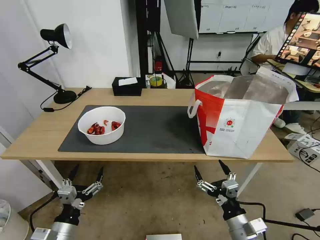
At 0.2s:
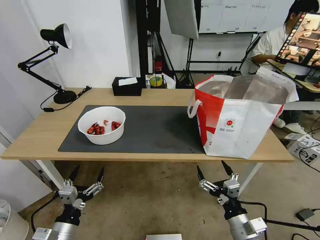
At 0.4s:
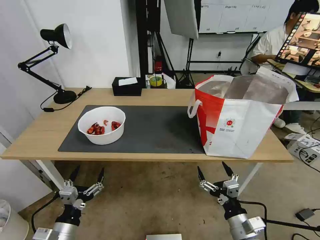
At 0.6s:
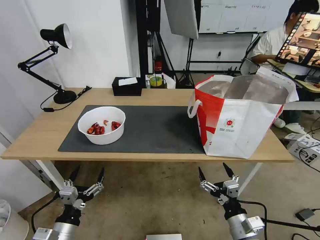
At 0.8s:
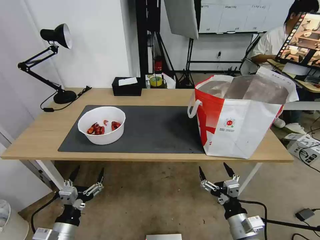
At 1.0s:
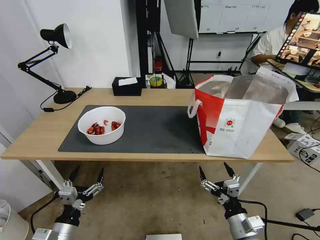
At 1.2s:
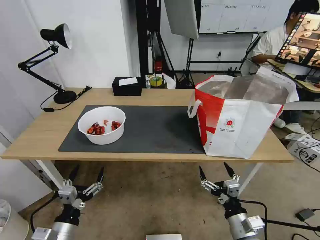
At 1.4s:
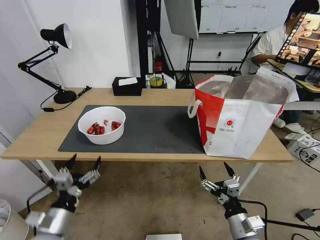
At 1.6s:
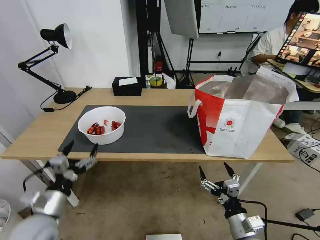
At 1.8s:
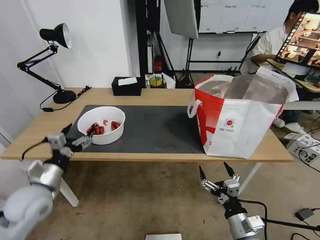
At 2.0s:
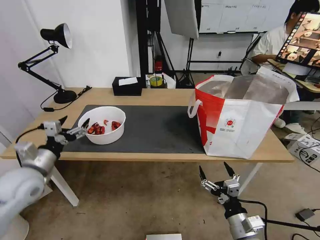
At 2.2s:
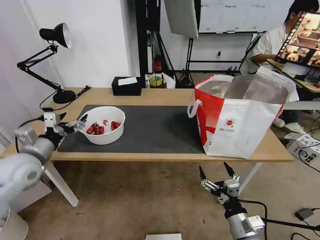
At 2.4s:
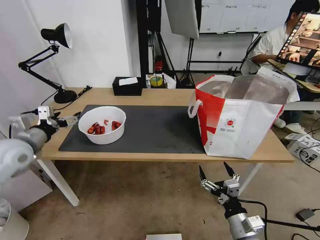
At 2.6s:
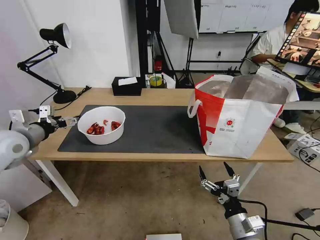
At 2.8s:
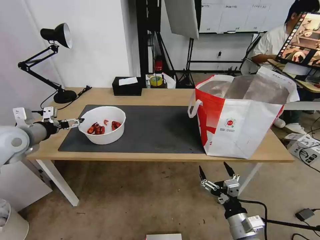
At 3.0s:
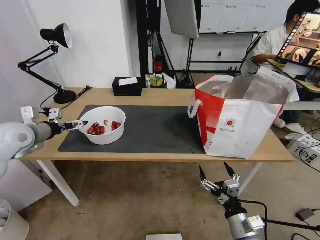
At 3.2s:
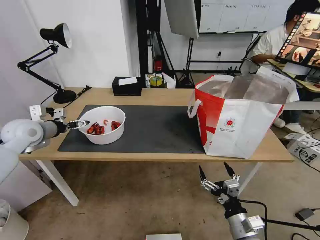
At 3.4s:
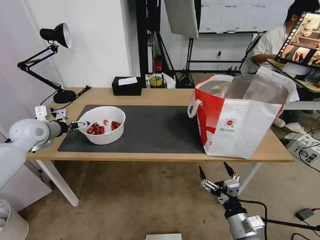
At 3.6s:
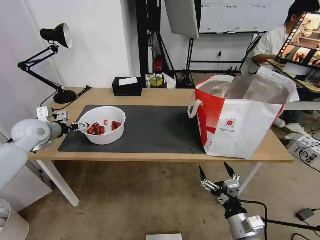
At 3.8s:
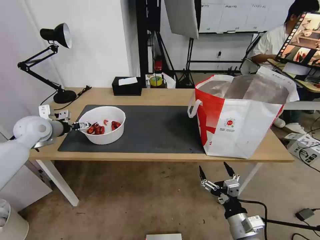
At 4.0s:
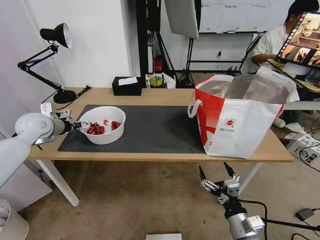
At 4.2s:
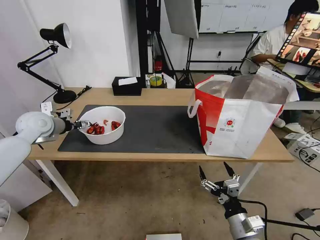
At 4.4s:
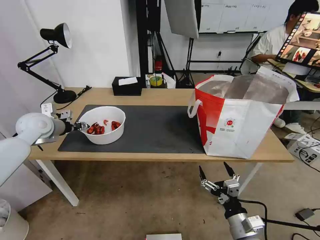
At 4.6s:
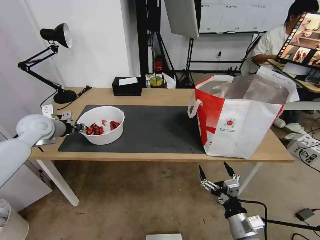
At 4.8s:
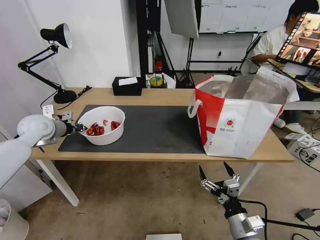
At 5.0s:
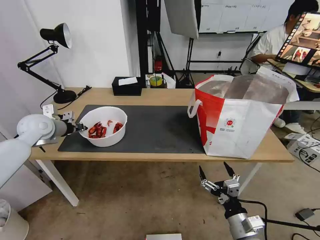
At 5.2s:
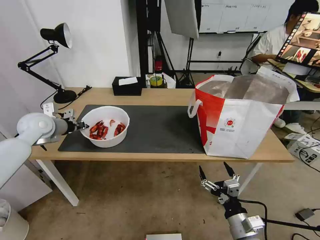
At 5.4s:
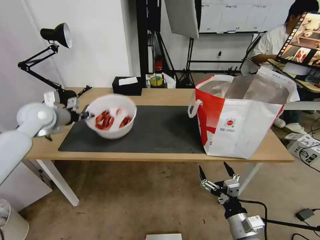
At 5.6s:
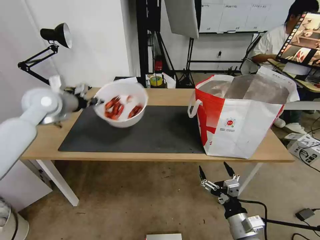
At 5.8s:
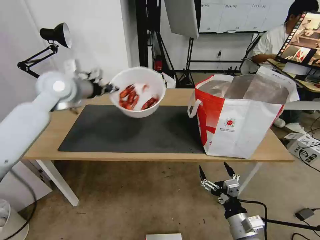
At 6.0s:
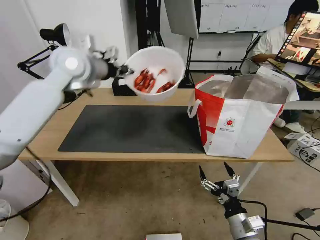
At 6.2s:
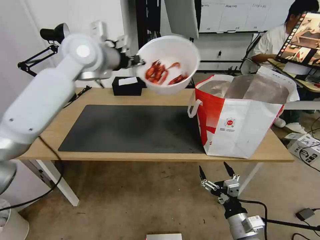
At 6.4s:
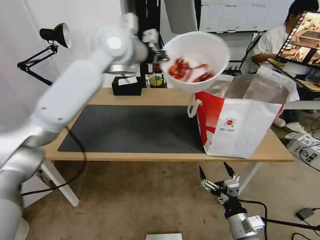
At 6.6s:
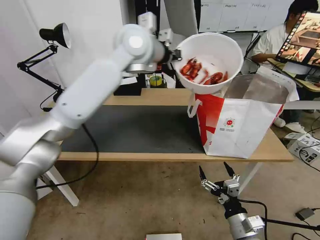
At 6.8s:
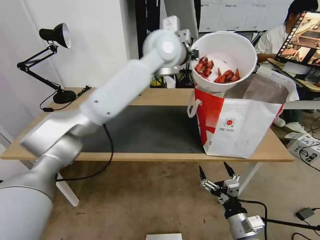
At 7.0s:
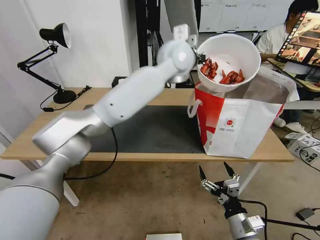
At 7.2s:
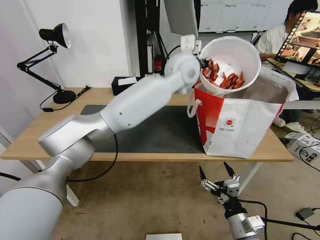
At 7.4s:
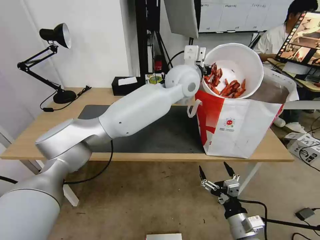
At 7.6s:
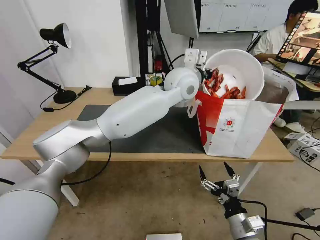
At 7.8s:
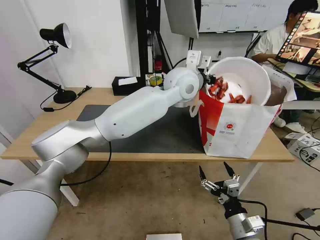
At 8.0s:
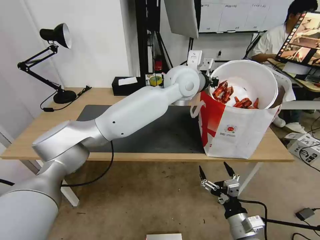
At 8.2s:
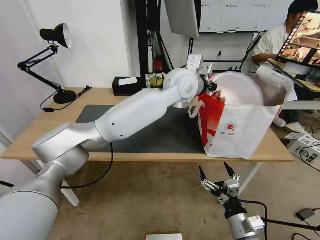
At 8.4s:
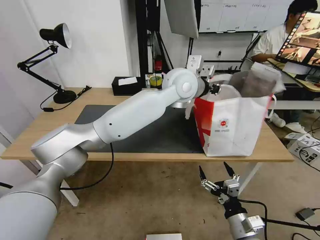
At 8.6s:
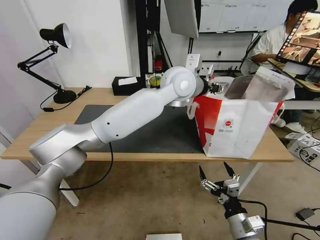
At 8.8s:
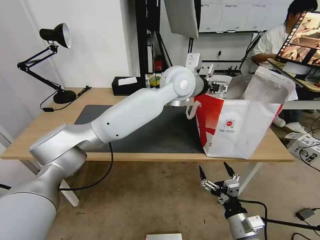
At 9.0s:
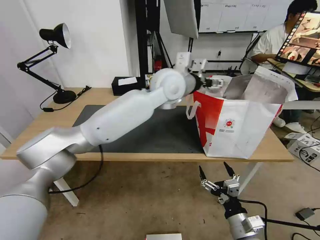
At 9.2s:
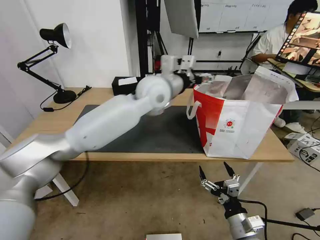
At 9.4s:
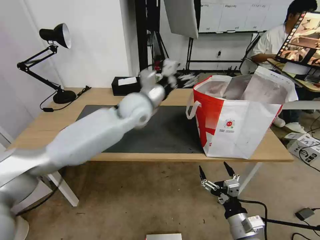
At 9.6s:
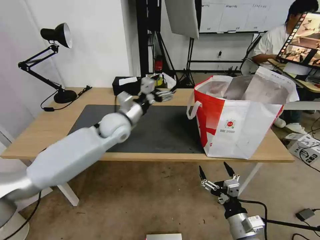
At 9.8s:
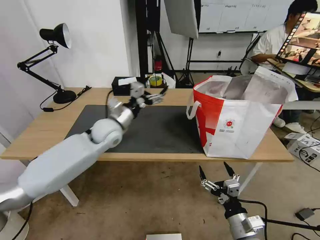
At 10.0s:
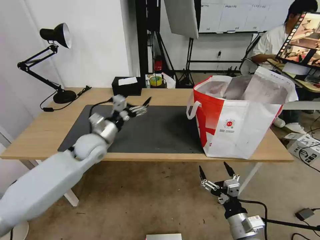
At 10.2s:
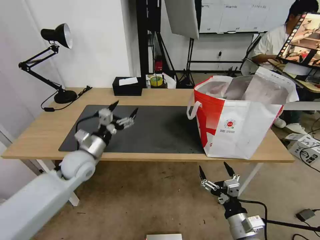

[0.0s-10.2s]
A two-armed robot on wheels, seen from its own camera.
Task of the whole recording: Pick up the trash from the table and place it into the takeout bag.
0.0s to 1.4s: The grippers stay close to where they were, moving slightly.
1.4s to 3.0s: The left gripper goes about 35 cm forward, upward and to the left.
3.0s to 4.4s: The left gripper is displaced forward by some 5 cm, and closes its fingers.
4.4s to 5.8s: The left gripper moves upward and to the right, some 20 cm, and closes up.
5.8s to 7.2s: The left gripper is displaced to the right by some 35 cm.
7.2s to 8.8s: The left gripper opens up.
8.8s to 10.2s: The left gripper goes roughly 40 cm to the left and downward.

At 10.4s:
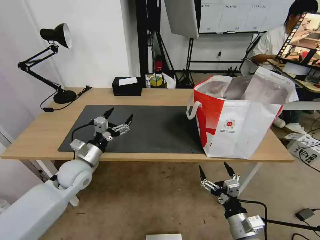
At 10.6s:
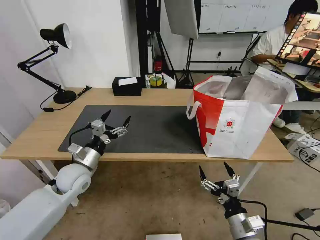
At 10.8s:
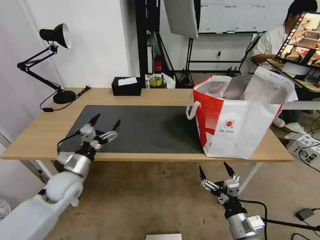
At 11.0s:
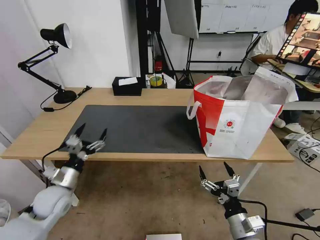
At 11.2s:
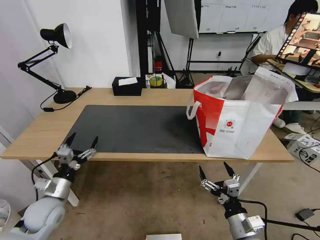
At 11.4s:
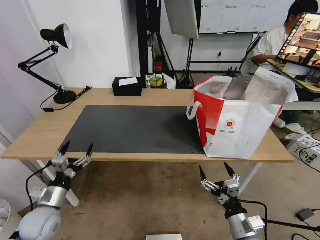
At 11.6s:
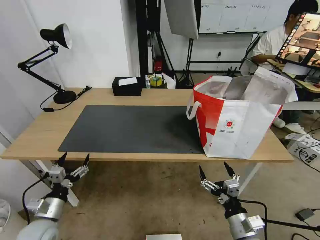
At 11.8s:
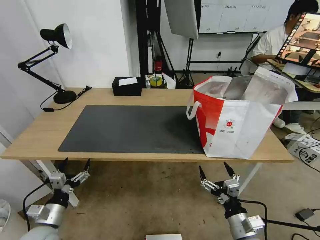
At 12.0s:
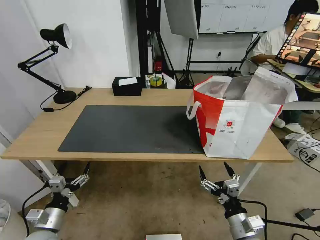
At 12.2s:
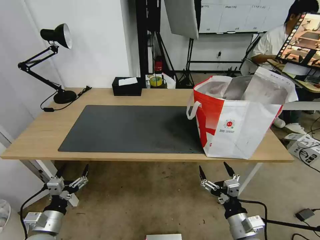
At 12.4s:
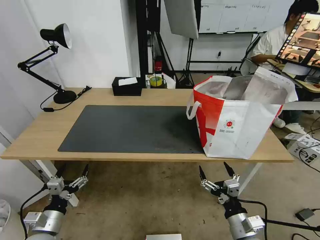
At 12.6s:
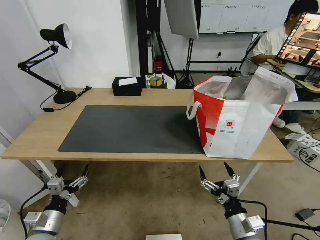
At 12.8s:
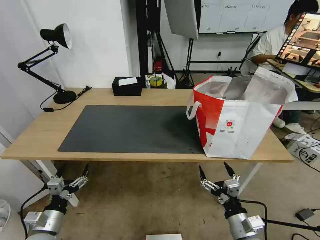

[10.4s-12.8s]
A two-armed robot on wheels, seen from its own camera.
Task of the whole recording: Pick up the trash from the table and place it into the takeout bag.
10.4s to 11.6s: The left gripper heads backward, downward and to the left, covering approximately 20 cm.
11.6s to 12.8s: The grippers move only a little.

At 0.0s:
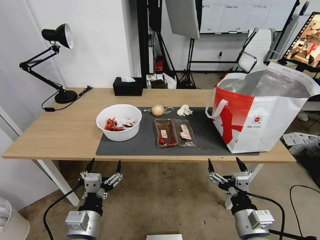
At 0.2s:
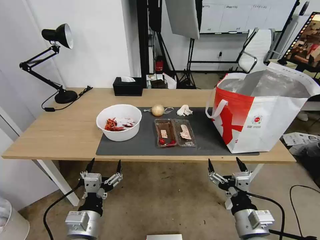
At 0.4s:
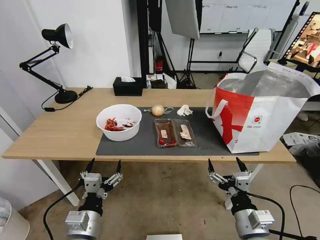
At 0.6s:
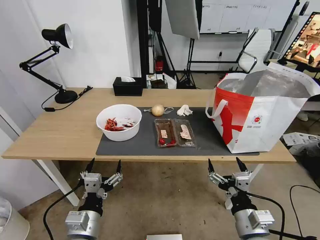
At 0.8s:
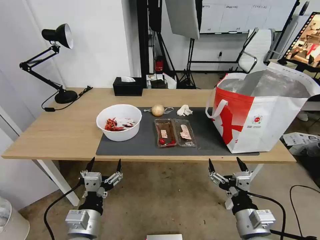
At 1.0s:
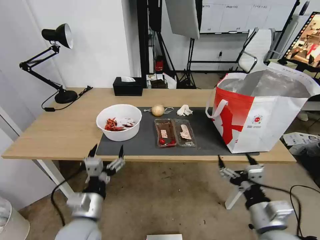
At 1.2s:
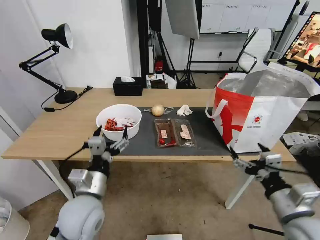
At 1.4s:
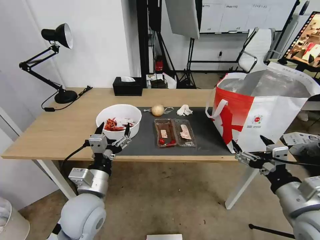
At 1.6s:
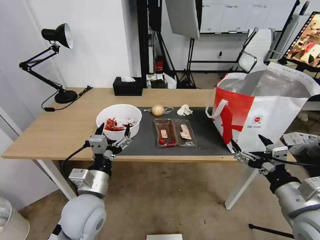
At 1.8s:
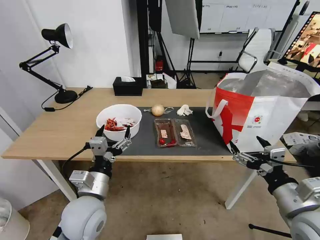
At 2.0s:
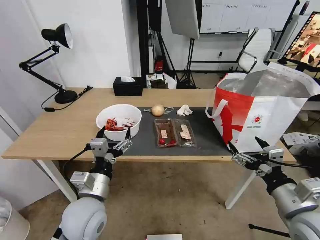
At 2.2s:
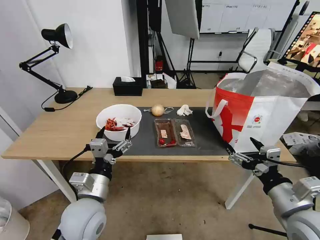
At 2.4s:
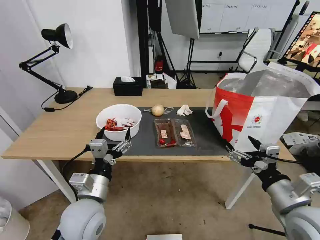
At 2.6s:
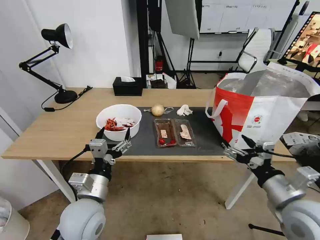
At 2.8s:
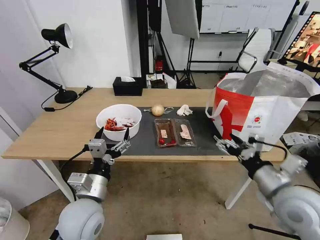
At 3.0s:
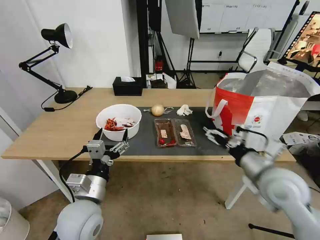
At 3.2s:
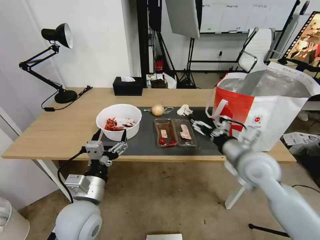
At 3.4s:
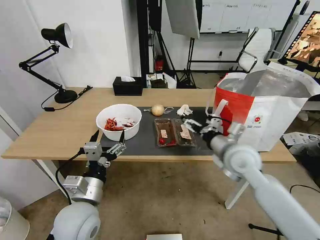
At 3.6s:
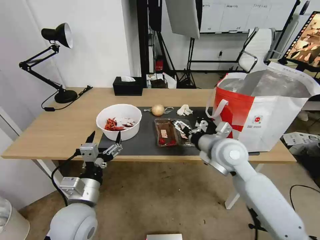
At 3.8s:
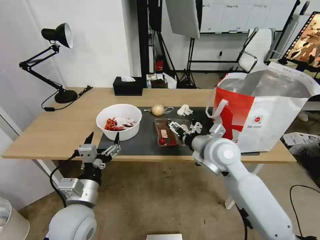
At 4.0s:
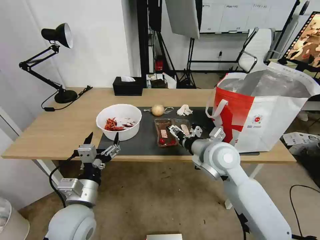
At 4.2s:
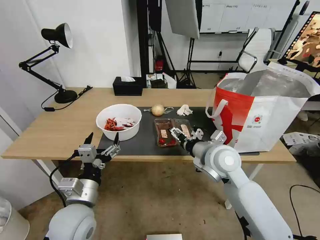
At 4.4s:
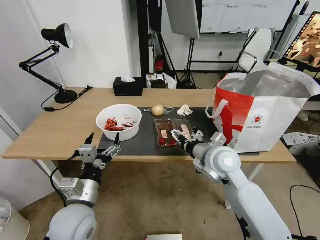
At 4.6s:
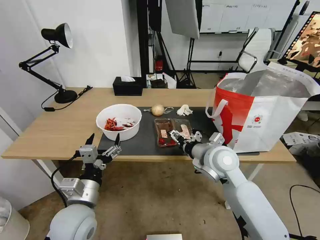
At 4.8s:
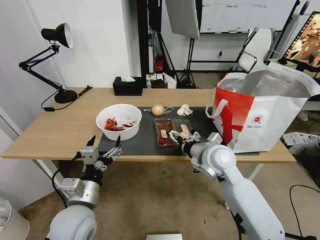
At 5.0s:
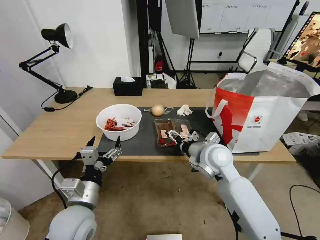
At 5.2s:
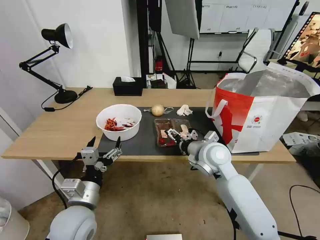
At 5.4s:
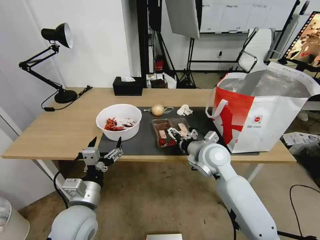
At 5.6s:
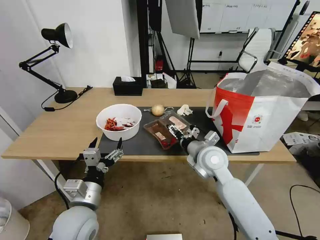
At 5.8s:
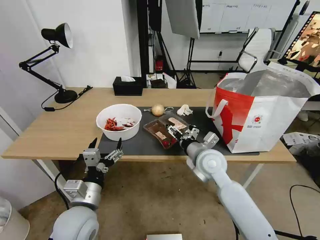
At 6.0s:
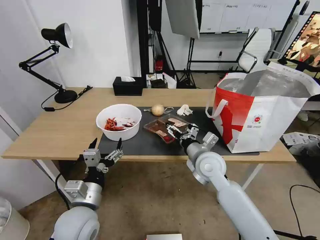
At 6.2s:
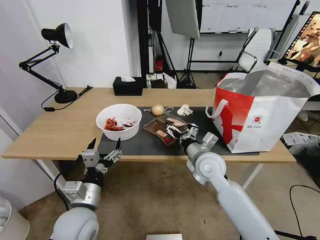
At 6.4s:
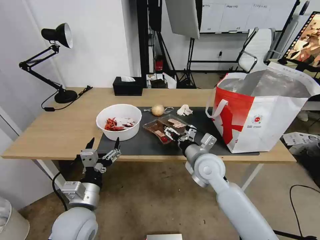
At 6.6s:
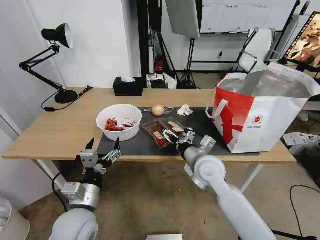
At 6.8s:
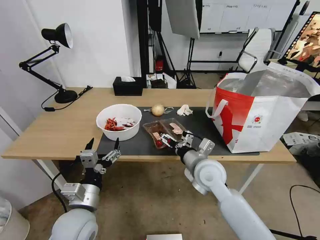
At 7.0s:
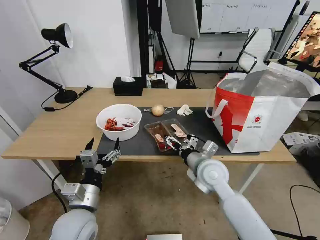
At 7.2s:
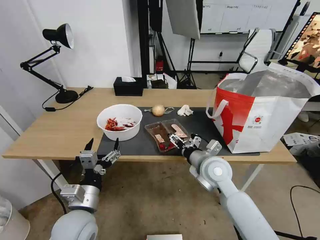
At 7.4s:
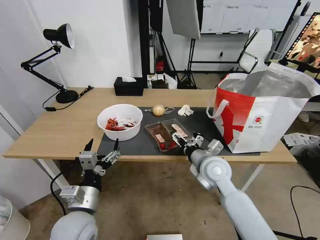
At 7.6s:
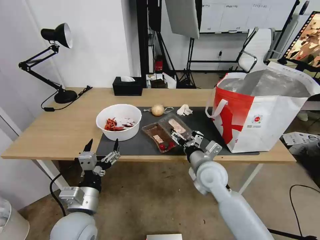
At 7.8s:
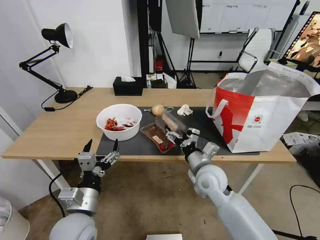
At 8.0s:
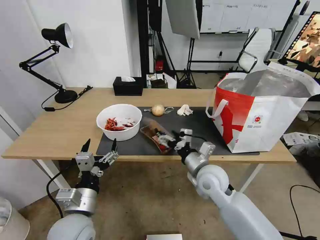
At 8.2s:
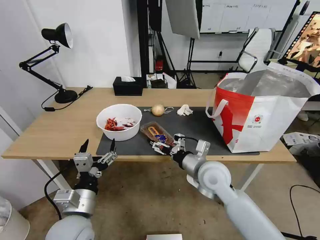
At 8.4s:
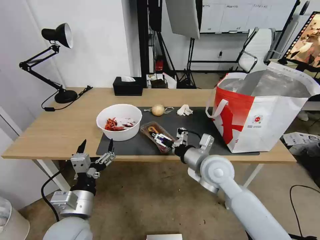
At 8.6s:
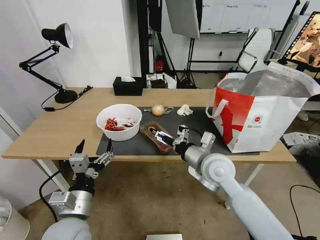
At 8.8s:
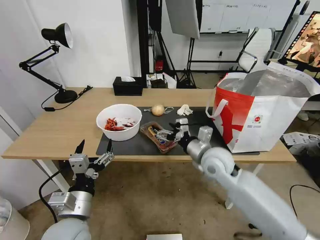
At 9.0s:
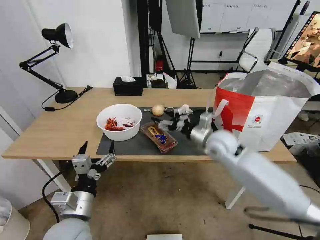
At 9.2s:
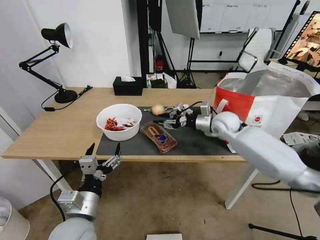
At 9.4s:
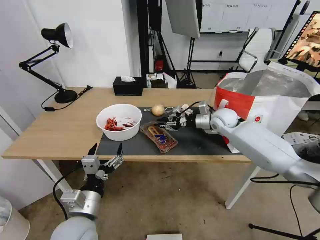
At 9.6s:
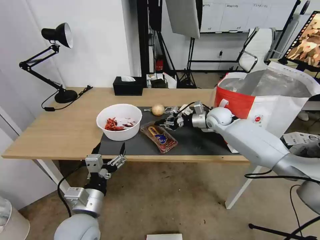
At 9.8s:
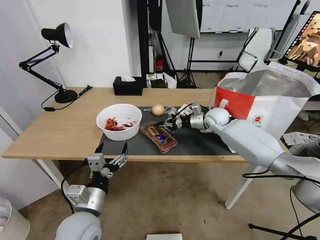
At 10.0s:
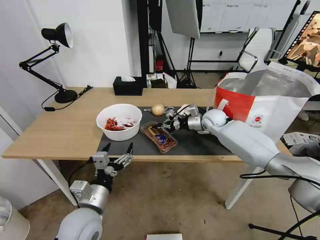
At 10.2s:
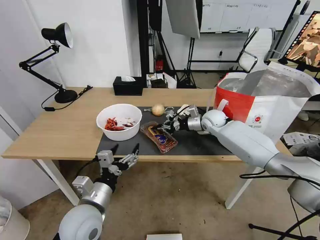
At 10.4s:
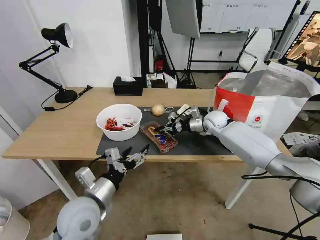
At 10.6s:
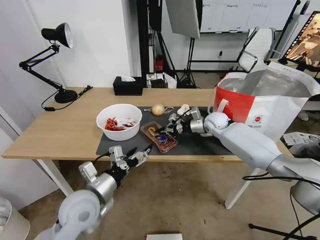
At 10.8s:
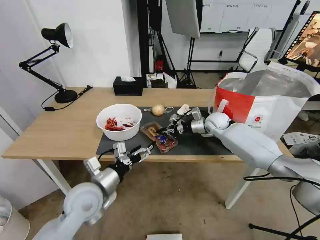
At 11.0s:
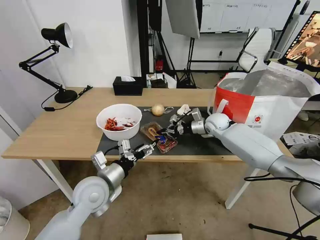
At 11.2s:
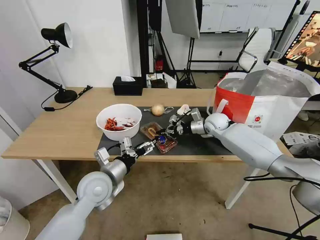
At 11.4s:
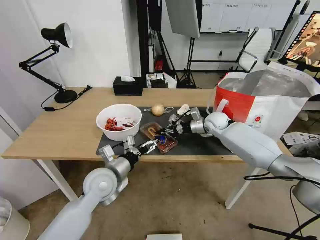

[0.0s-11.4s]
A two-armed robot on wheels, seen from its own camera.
Task of the whole recording: Pick up the trash from the table and place it into the takeout bag.
1.4s to 2.8s: The right gripper goes approximately 5 cm forward.
2.8s to 4.2s: The right gripper moves to the left and forward, roughly 20 cm.
4.2s to 5.6s: The grippers move only a little.
5.6s to 7.2s: The grippers make only small movements.
8.6s to 10.0s: The right gripper goes some 25 cm forward, and closes up.
10.0s to 11.4s: The left gripper heads forward, covering about 10 cm.
